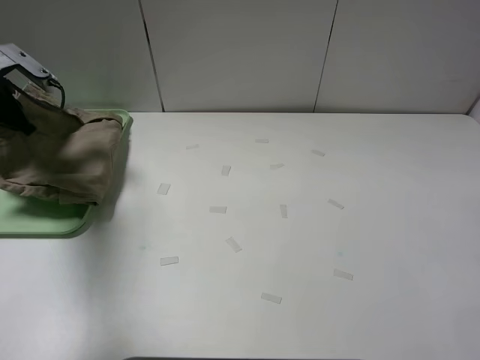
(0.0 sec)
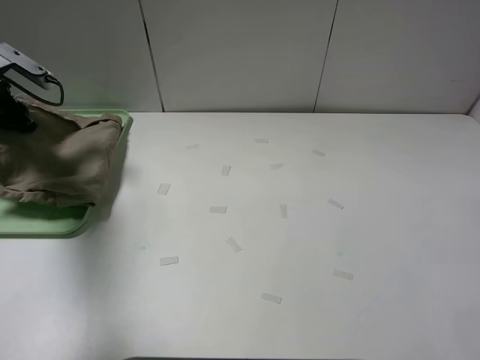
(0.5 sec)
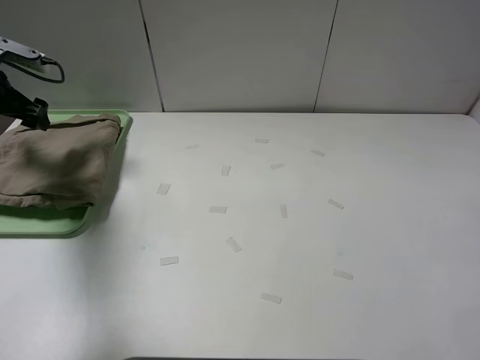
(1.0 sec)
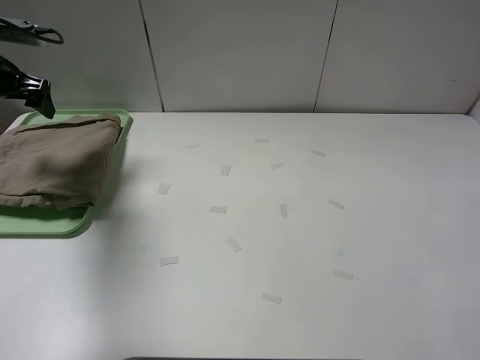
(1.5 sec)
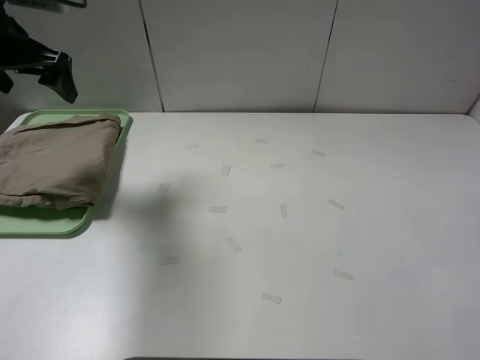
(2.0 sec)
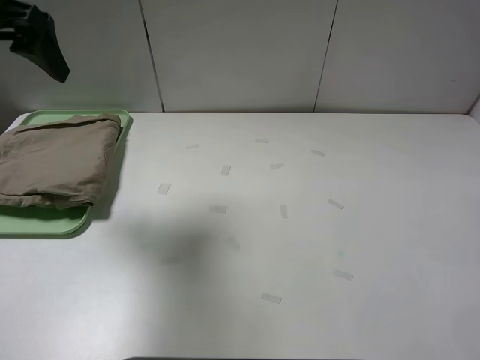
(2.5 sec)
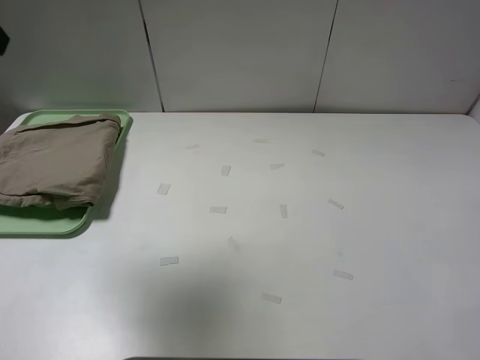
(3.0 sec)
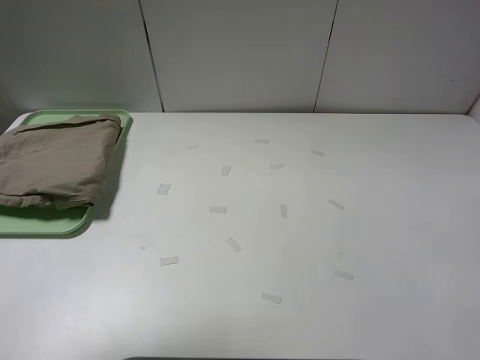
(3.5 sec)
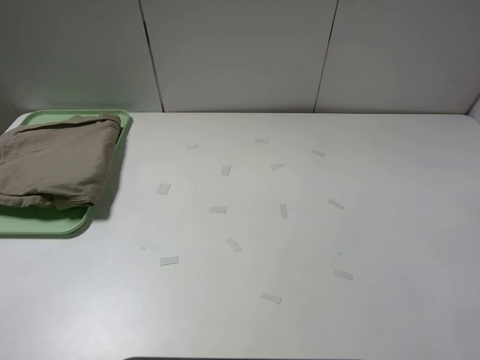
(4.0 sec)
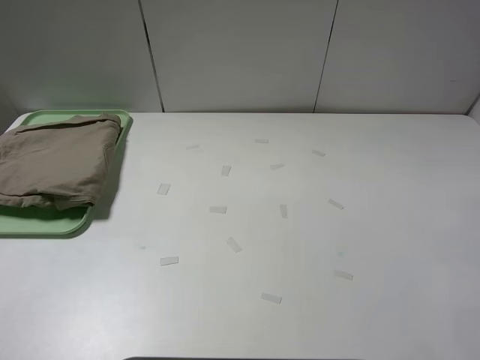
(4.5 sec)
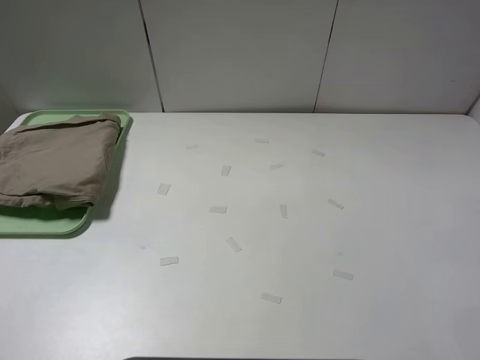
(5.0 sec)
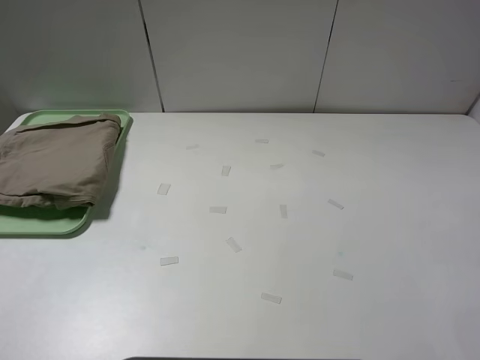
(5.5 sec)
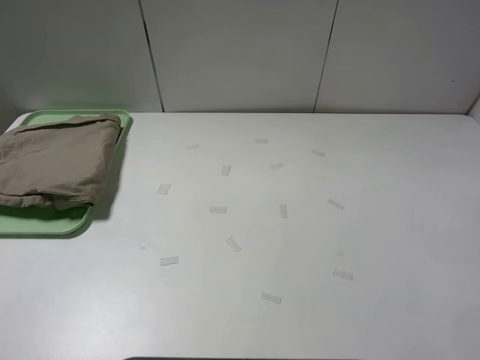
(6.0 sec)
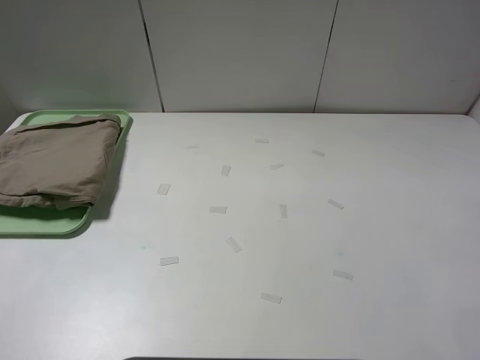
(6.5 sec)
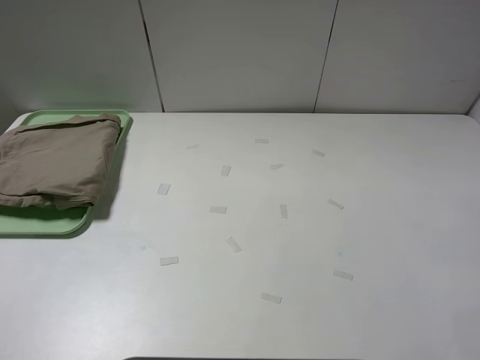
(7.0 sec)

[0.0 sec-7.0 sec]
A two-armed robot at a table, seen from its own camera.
Task of the whole recording: fold the khaki jeans in half with two grippers, then fold them in half again, and use the left claw to place the folded fold khaki jeans on the tray.
0.0 sec to 2.0 sec: The left gripper heads upward and to the right, covering about 15 cm, and opens.
2.0 sec to 3.5 sec: The left gripper is displaced backward and upward by about 25 cm.
3.5 sec to 5.0 sec: The left gripper moves backward and downward, approximately 15 cm.
